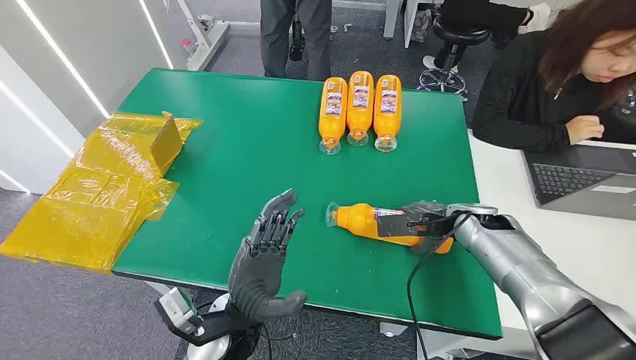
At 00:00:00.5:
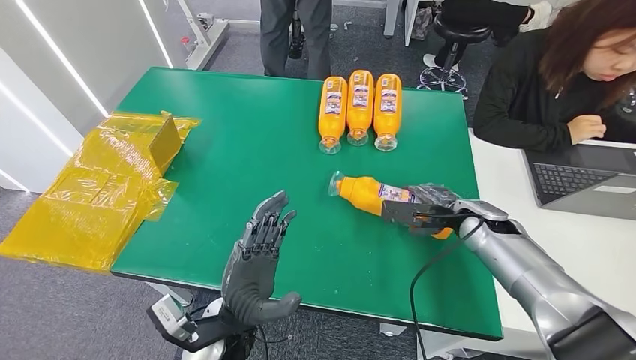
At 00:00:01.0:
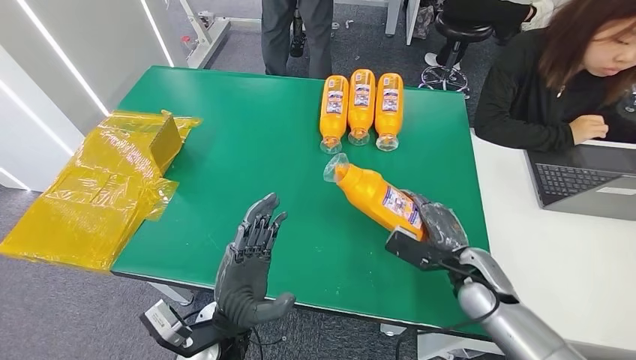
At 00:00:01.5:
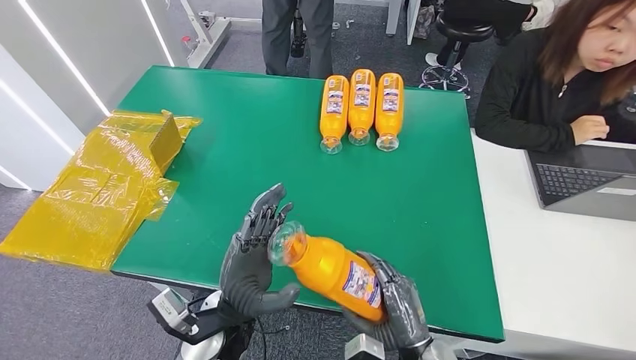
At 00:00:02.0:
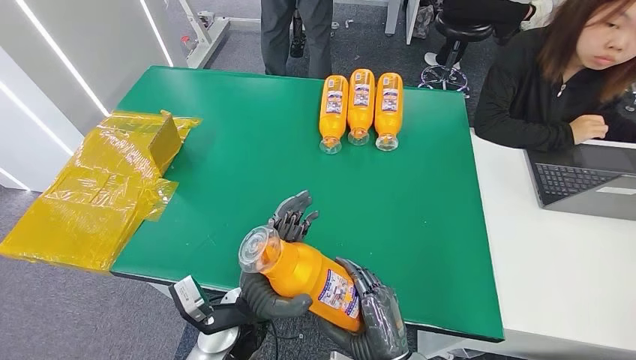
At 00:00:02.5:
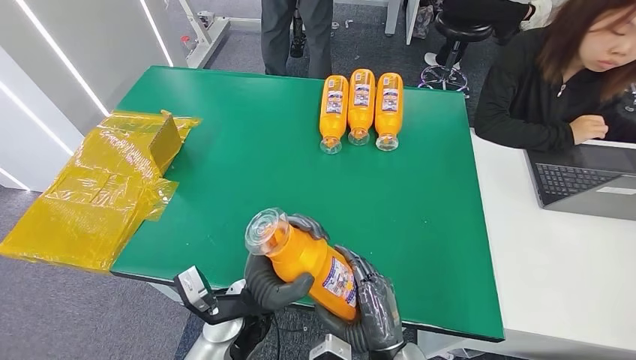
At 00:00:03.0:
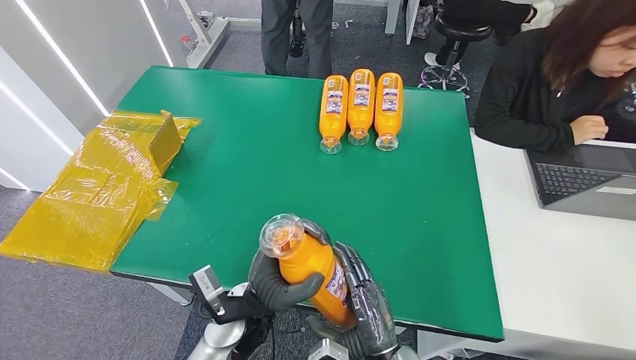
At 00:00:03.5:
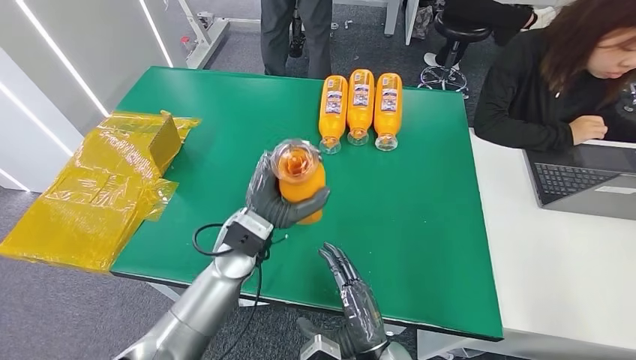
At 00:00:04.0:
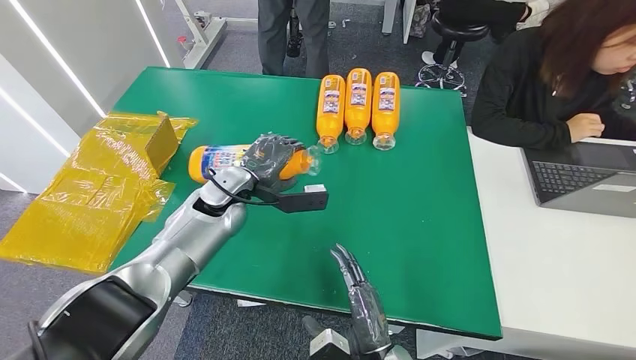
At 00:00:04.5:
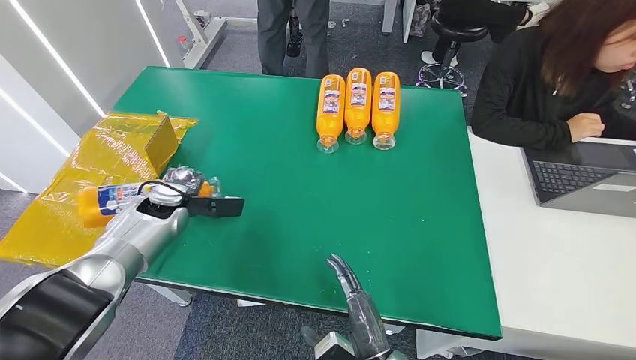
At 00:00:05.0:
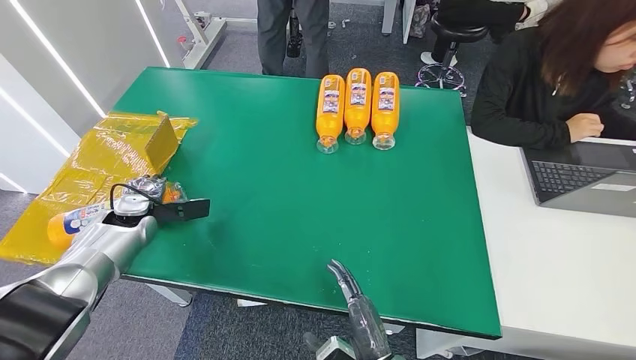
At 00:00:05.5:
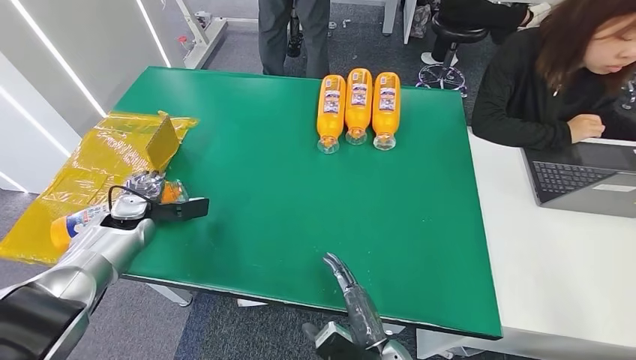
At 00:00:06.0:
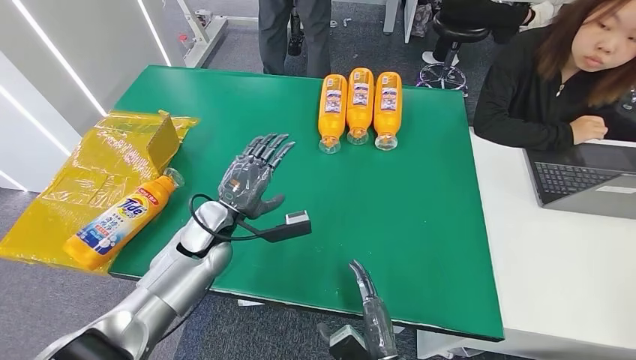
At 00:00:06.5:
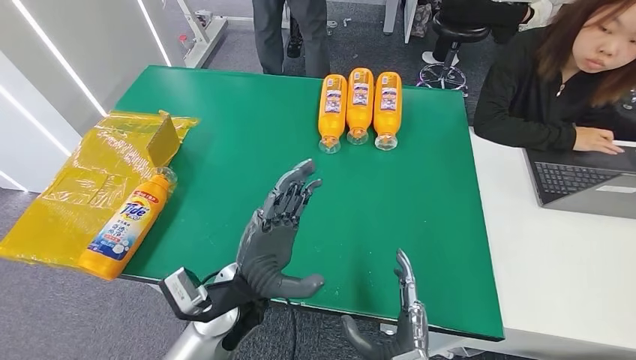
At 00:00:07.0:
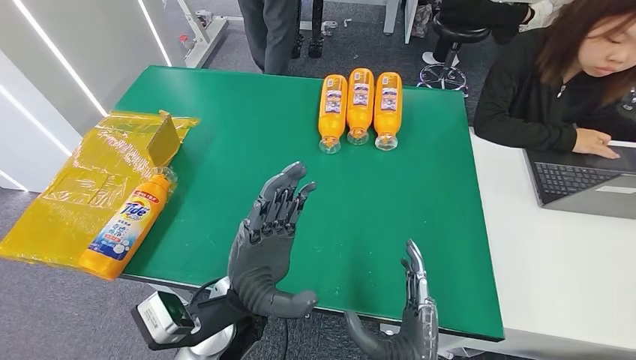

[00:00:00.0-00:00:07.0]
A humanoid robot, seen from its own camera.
Step, 00:00:00.0 to 00:00:02.0: Pick up the bottle from the table.
Step, 00:00:03.0 to 00:00:07.0: Turn the bottle to the front side.
00:00:02.0 to 00:00:03.5: The left hand heads forward and upward, covering about 15 cm.

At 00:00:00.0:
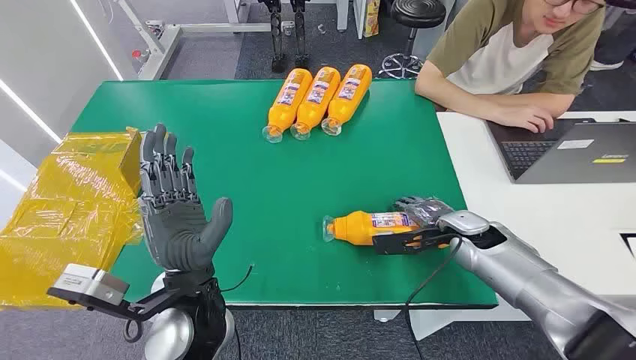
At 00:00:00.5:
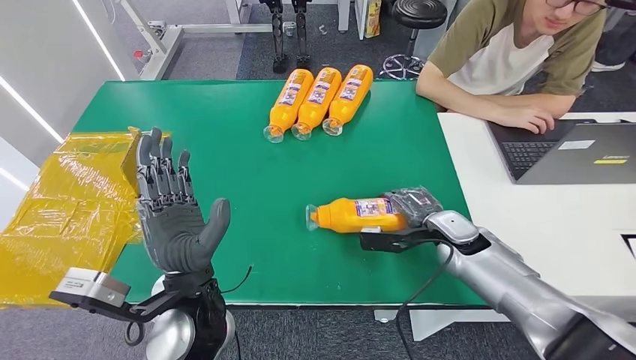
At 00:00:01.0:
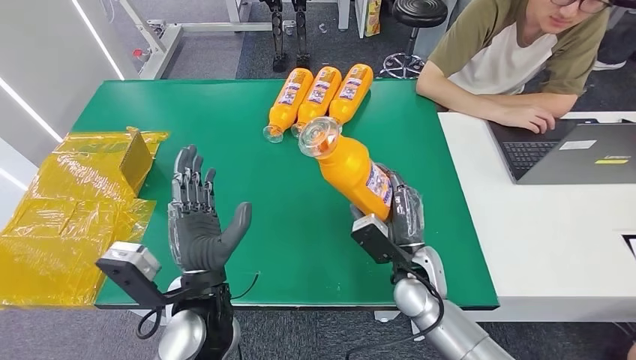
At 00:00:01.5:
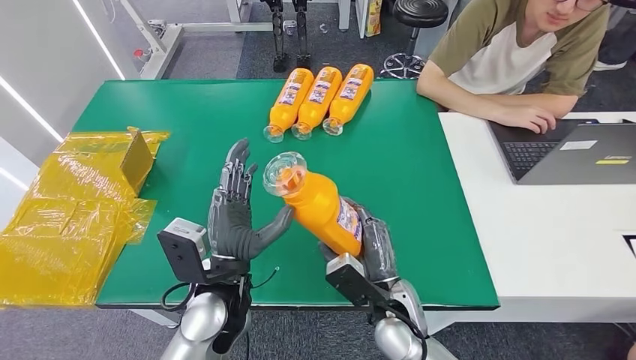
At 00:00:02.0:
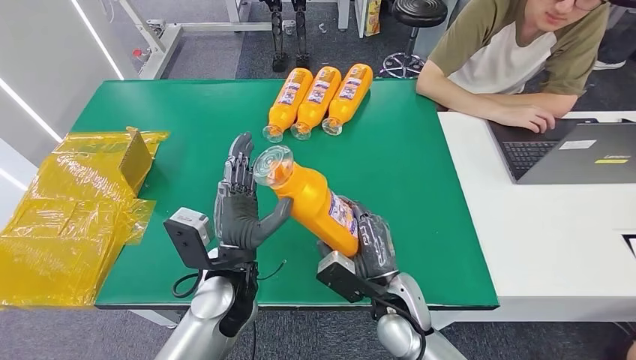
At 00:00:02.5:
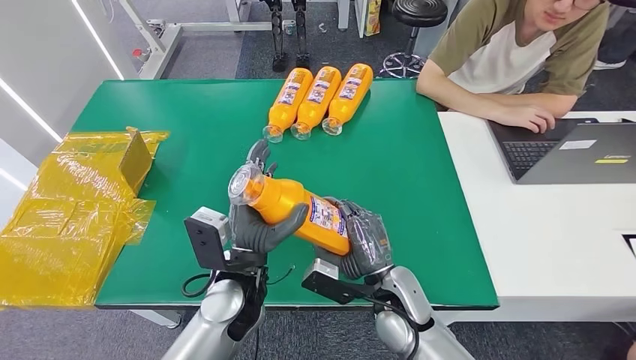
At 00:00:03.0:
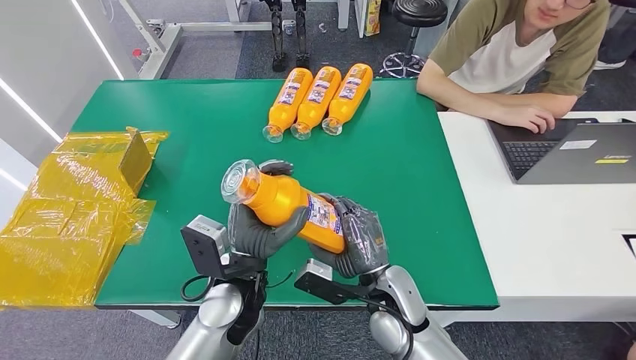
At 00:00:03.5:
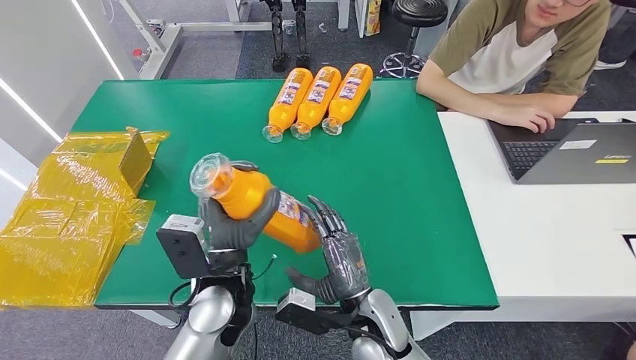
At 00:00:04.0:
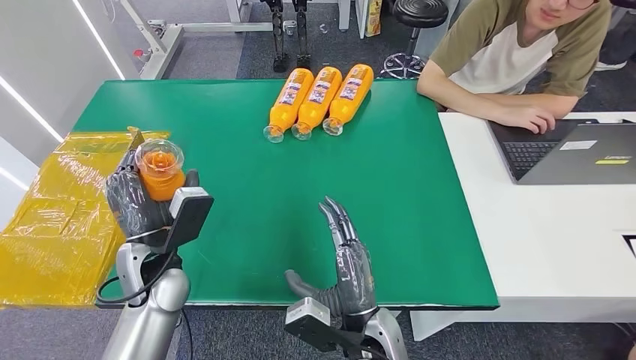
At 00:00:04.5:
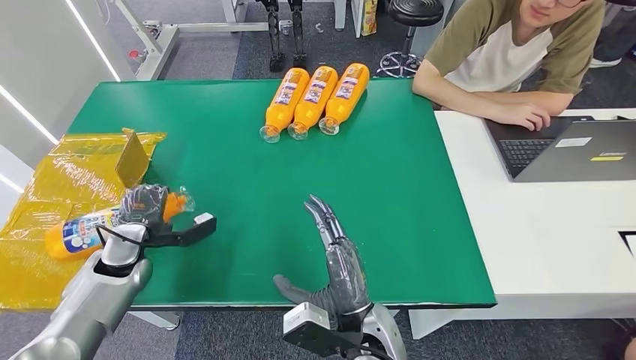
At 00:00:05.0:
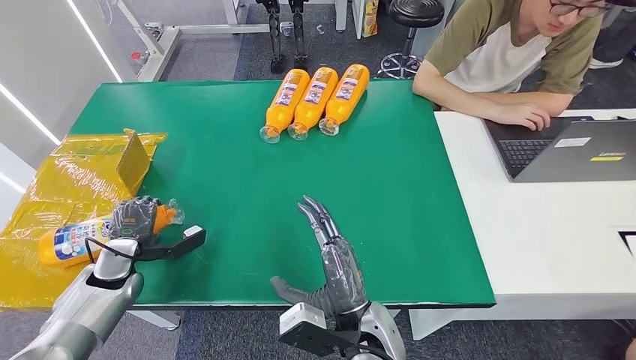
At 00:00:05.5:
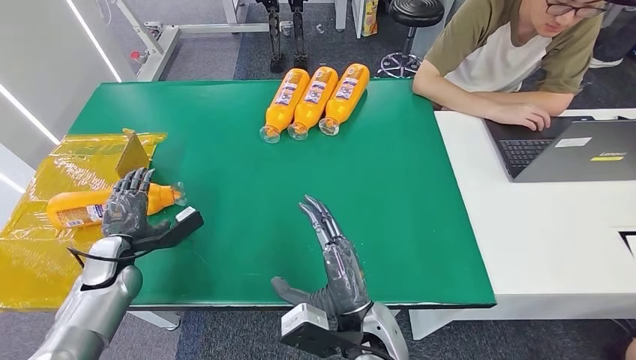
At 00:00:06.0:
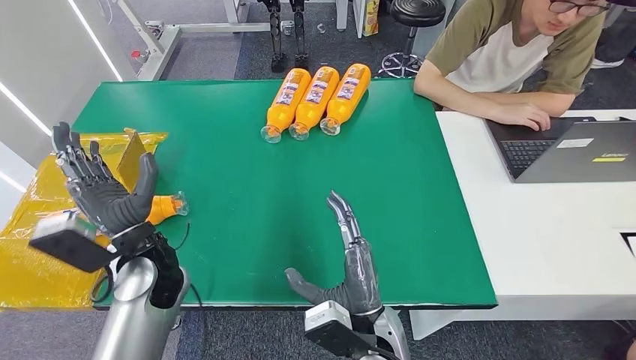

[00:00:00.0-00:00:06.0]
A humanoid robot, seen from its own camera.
Step, 00:00:00.0 to 00:00:01.5: Pick up the bottle from the table.
Step, 00:00:02.0 to 00:00:06.0: Turn the bottle to the front side.
00:00:02.0 to 00:00:04.0: The left hand travels to the left by about 10 cm, while the right hand goes approximately 10 cm backward and to the left.
